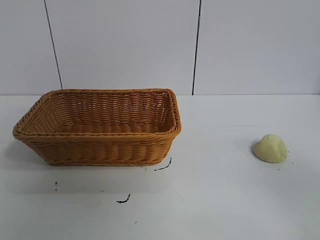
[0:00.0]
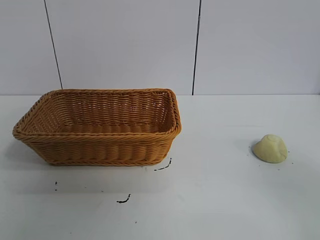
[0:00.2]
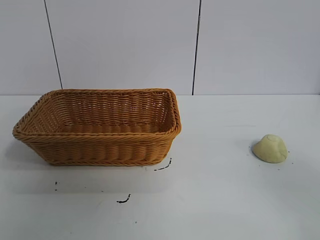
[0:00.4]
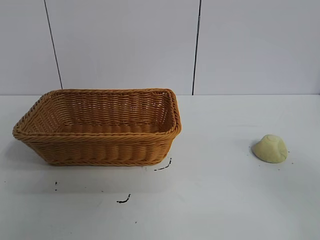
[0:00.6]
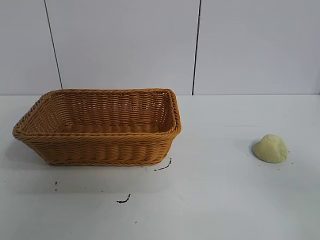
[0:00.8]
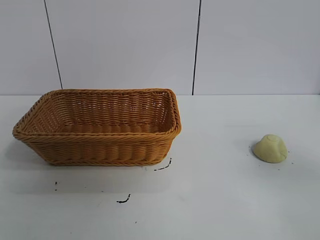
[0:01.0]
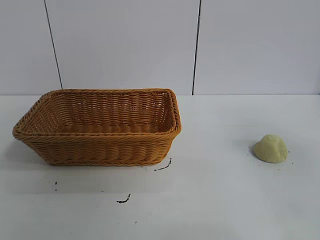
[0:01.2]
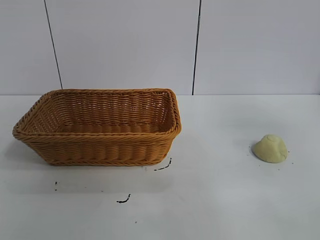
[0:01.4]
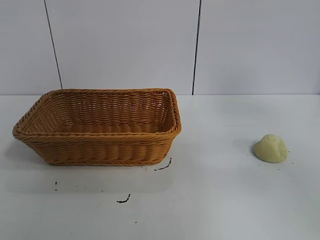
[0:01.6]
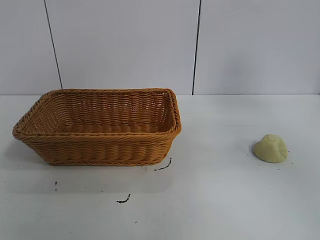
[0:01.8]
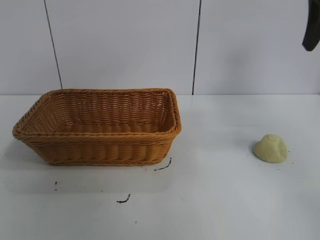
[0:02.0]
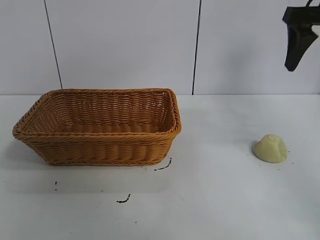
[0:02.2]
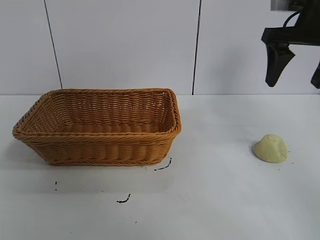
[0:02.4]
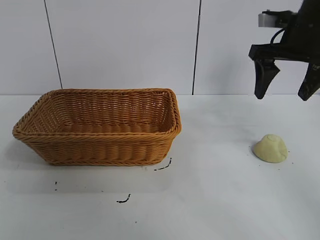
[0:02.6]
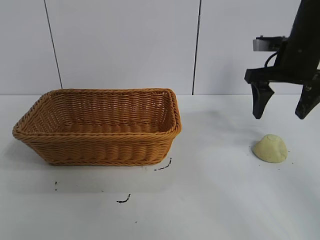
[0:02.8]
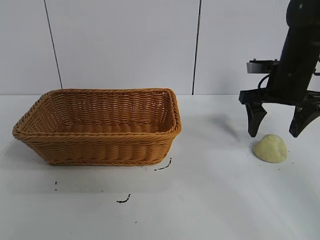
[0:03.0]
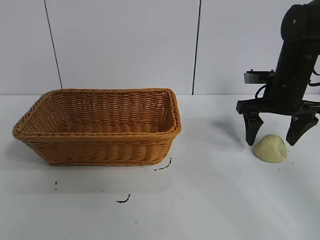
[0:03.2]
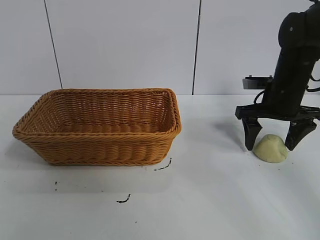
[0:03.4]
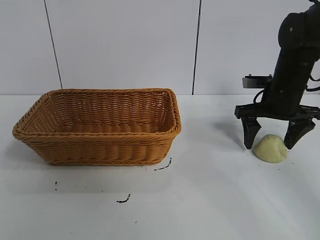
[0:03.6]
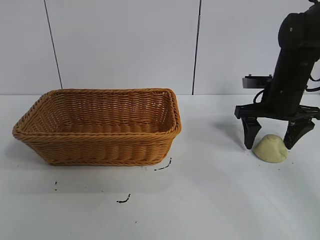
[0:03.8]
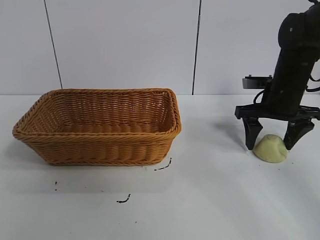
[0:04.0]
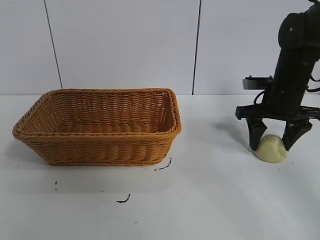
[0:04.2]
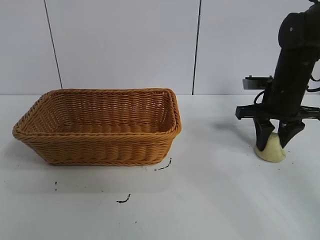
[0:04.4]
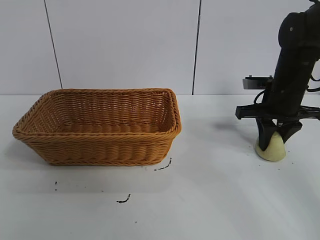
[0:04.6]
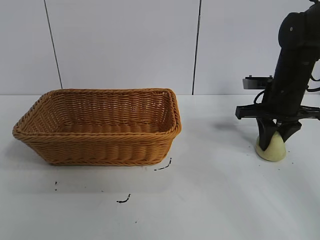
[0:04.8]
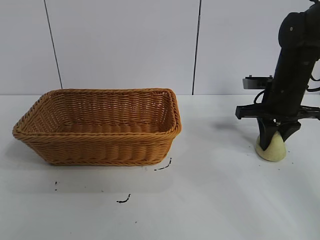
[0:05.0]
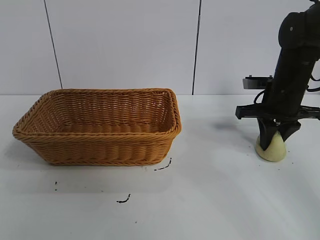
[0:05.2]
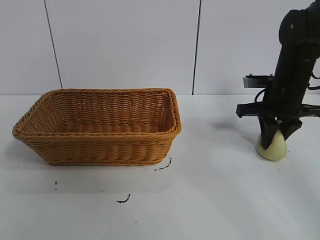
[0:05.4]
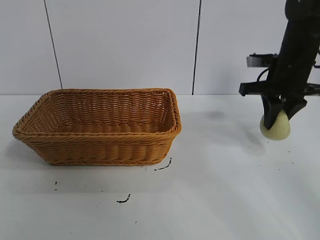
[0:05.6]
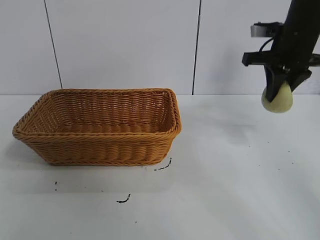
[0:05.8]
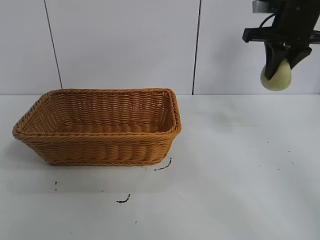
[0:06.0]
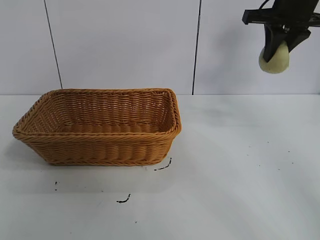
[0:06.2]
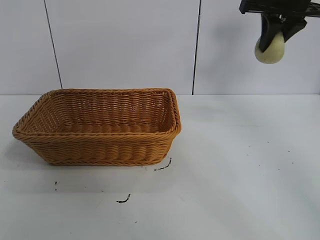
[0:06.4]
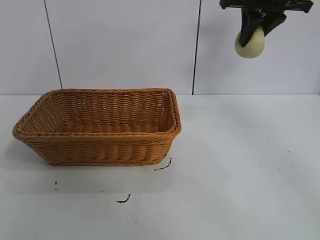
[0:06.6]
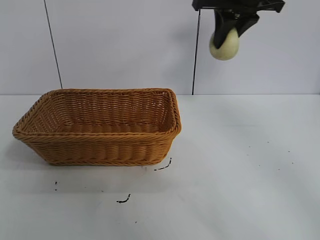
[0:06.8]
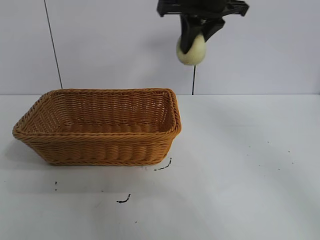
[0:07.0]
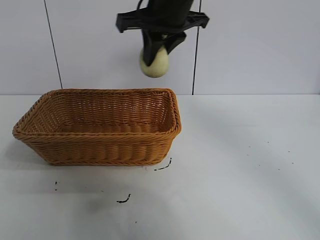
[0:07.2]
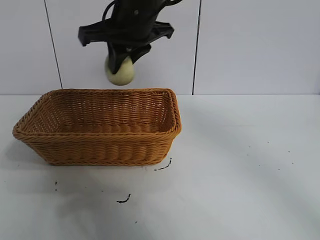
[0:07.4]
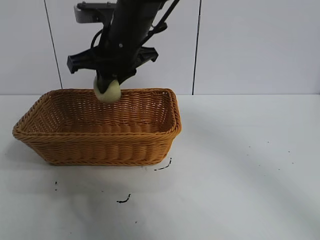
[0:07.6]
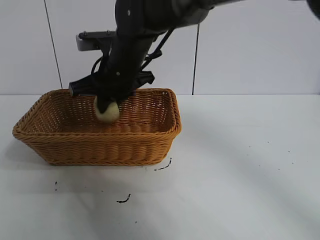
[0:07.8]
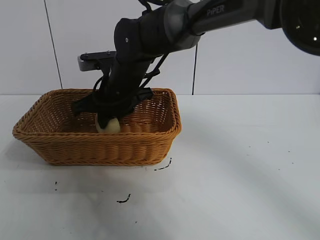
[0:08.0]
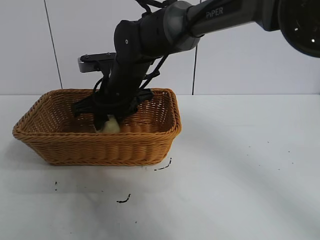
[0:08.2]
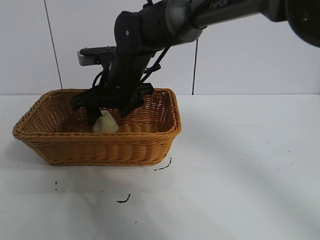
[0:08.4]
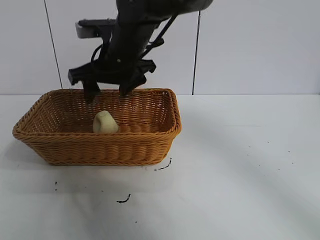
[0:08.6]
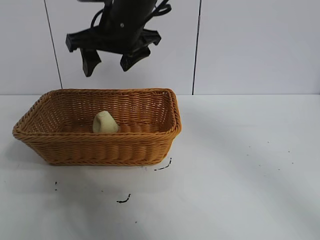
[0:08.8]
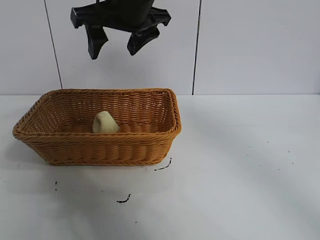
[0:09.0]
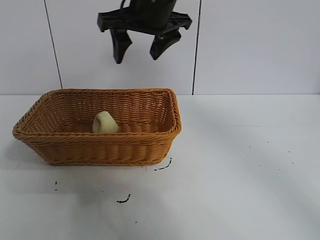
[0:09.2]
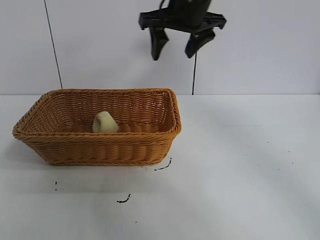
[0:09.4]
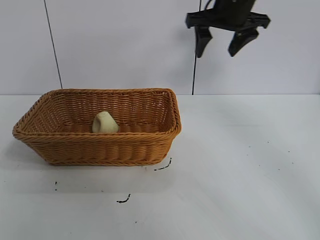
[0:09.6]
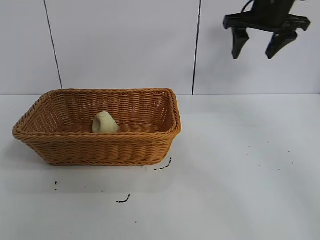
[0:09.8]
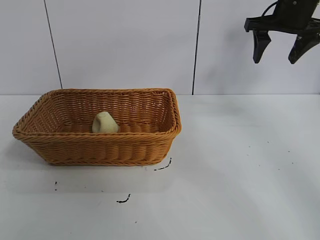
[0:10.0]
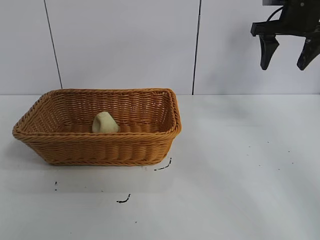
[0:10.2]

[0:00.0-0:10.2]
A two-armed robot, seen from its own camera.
Task of the whole recording: pick up the egg yolk pastry and put it into the basket.
Step, 0:00.8 to 0:04.8: Grasp egg yolk pastry with right gripper.
Step, 0:05.0 to 0:08.2: Place the egg yolk pastry in the basket with right gripper.
